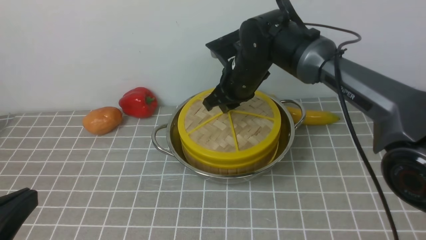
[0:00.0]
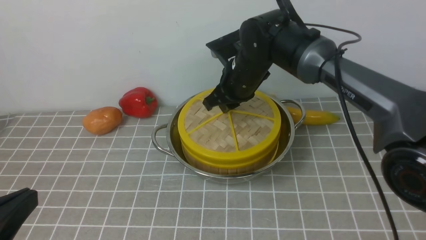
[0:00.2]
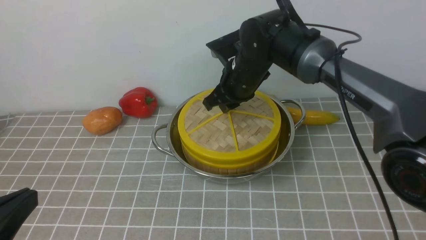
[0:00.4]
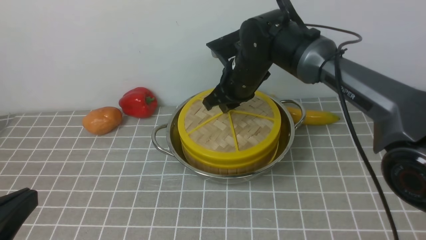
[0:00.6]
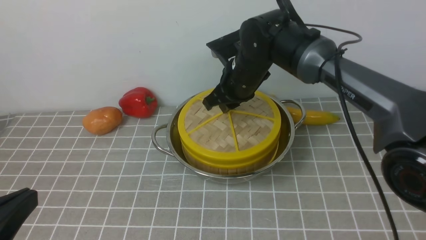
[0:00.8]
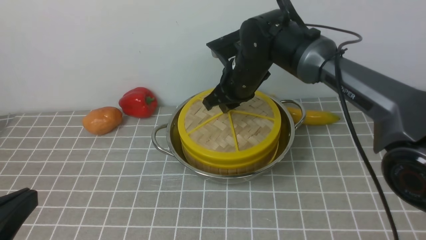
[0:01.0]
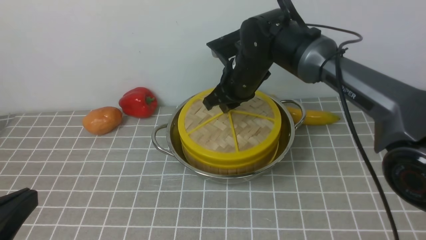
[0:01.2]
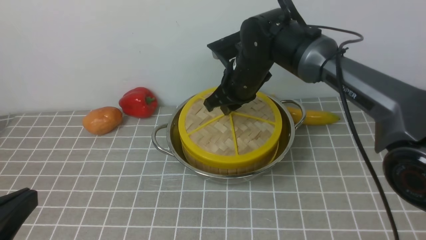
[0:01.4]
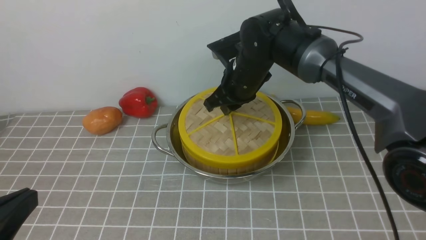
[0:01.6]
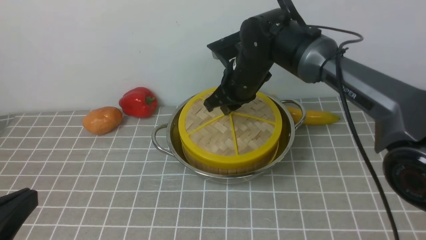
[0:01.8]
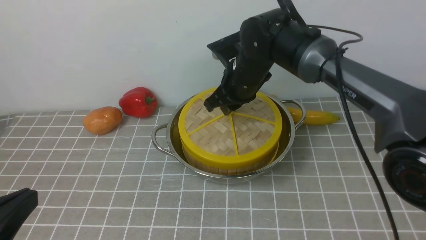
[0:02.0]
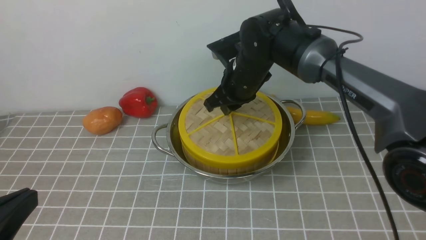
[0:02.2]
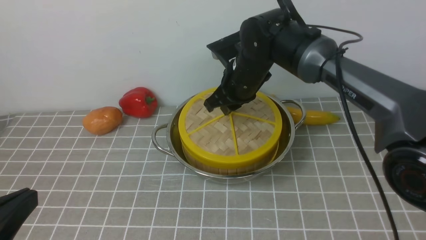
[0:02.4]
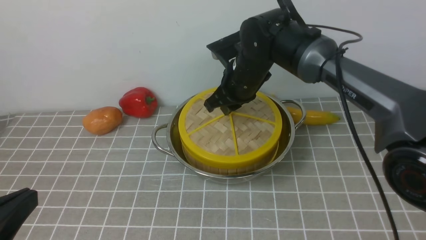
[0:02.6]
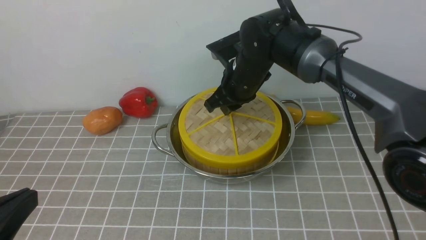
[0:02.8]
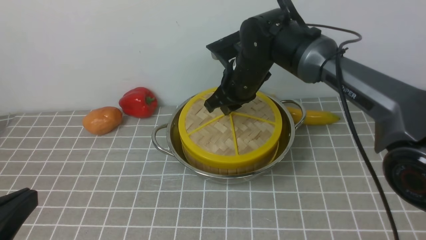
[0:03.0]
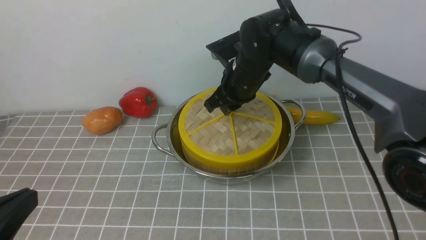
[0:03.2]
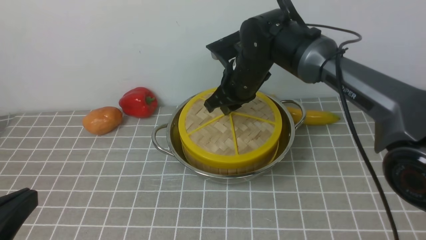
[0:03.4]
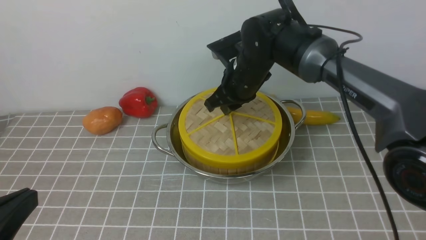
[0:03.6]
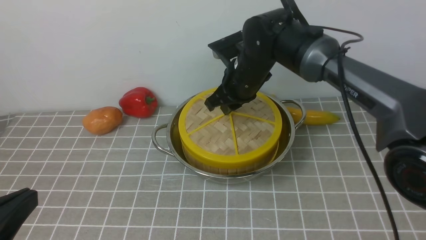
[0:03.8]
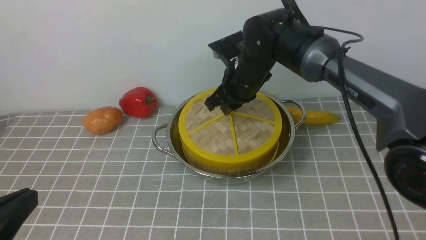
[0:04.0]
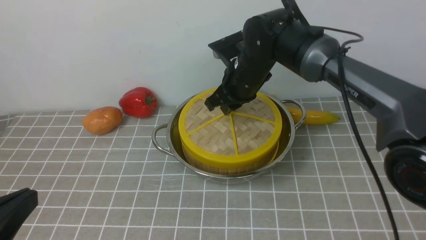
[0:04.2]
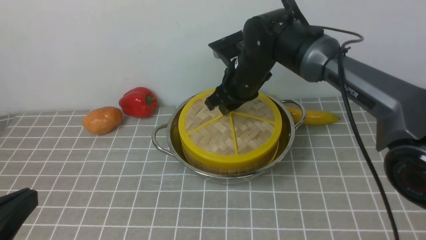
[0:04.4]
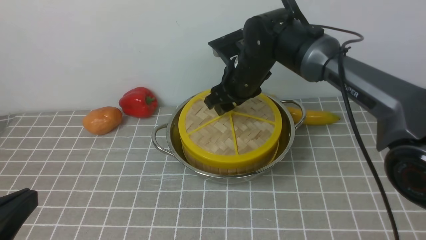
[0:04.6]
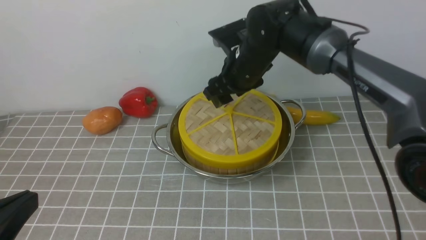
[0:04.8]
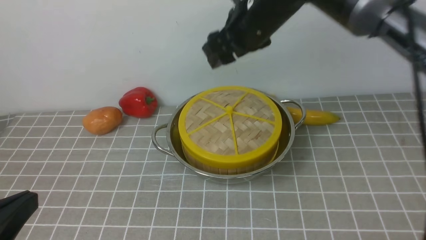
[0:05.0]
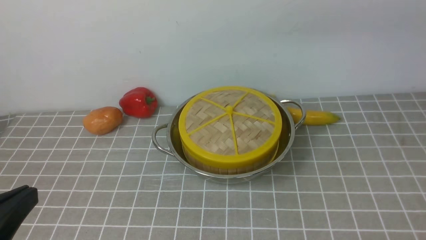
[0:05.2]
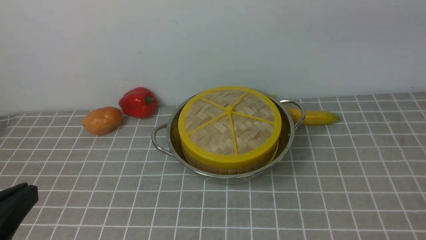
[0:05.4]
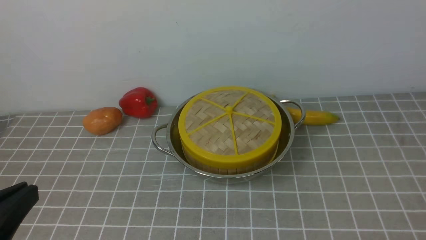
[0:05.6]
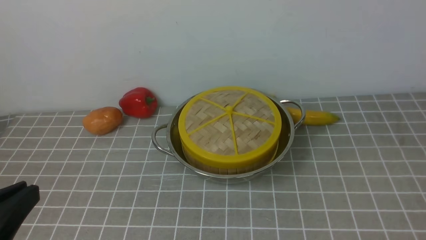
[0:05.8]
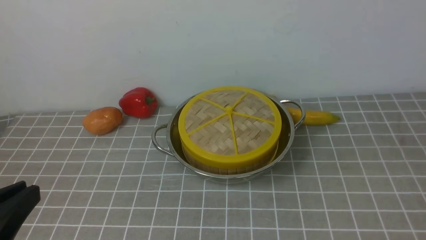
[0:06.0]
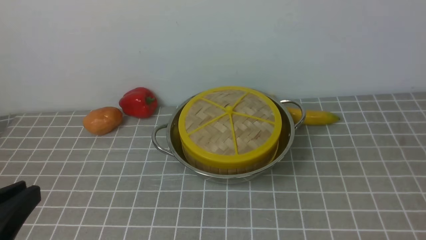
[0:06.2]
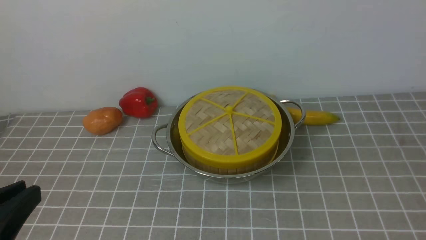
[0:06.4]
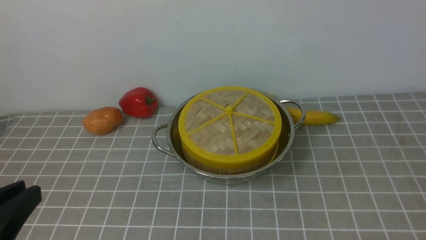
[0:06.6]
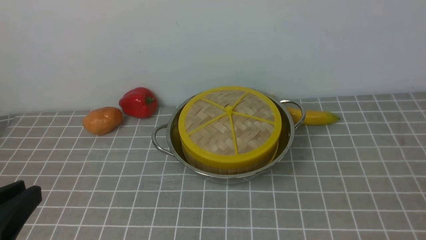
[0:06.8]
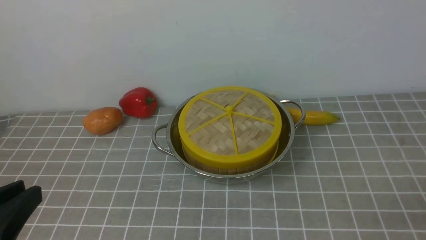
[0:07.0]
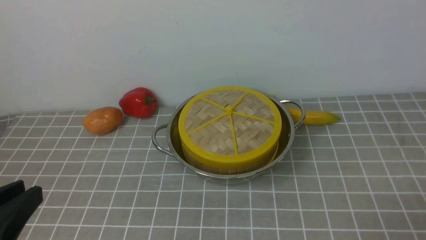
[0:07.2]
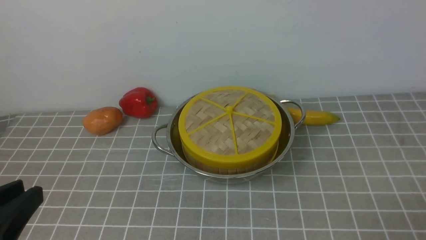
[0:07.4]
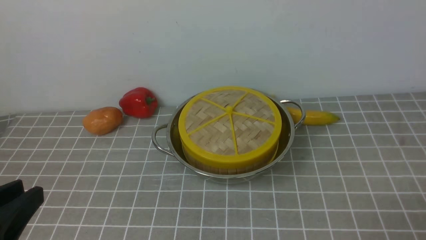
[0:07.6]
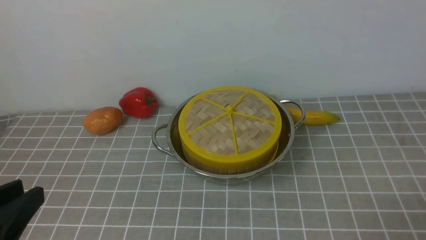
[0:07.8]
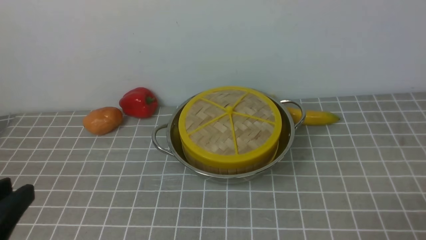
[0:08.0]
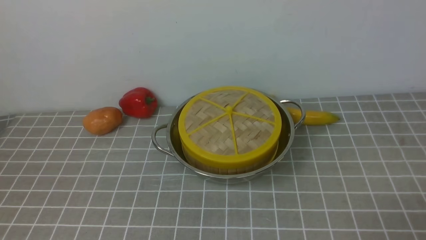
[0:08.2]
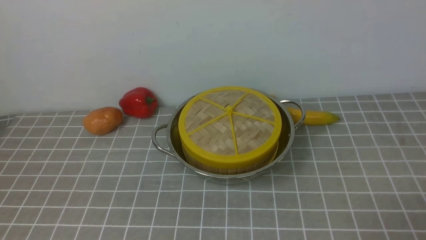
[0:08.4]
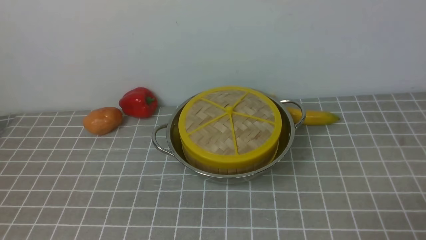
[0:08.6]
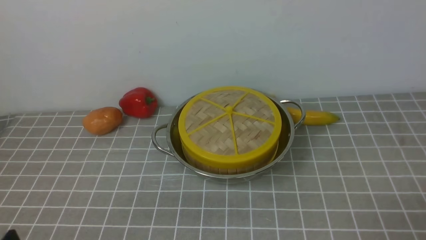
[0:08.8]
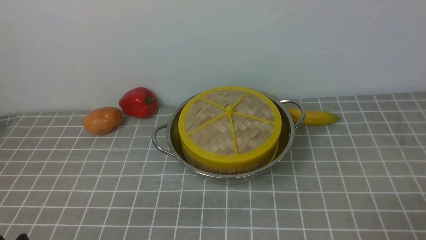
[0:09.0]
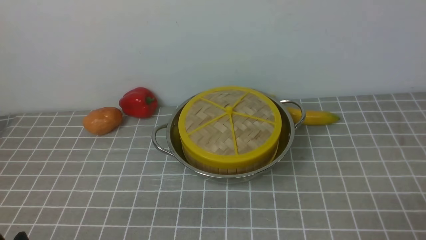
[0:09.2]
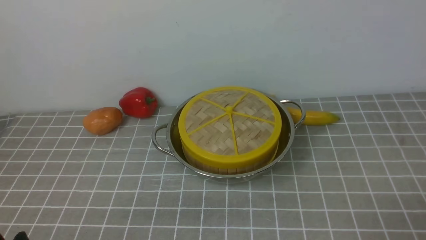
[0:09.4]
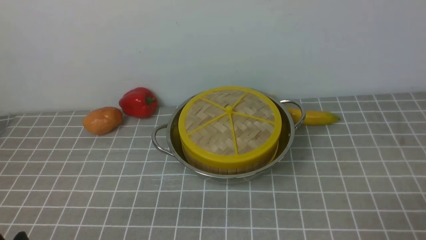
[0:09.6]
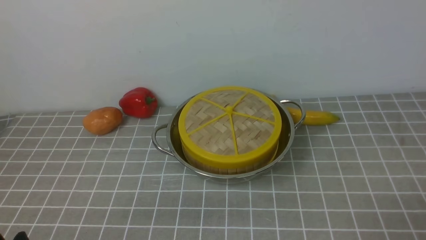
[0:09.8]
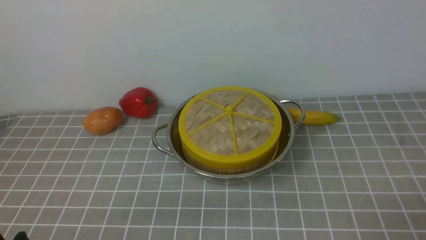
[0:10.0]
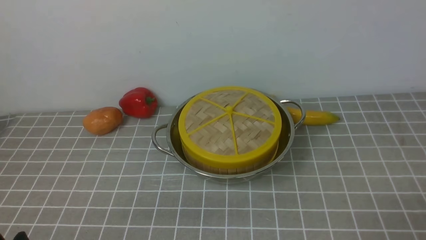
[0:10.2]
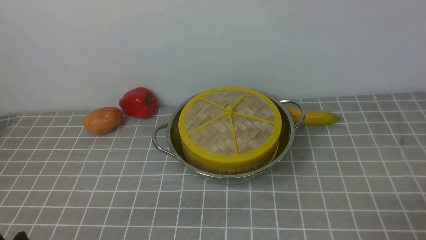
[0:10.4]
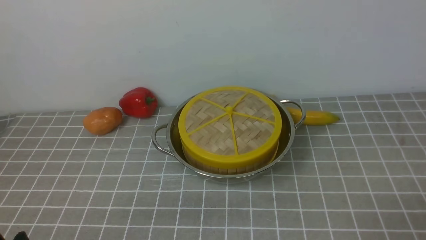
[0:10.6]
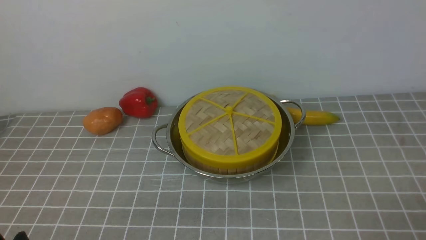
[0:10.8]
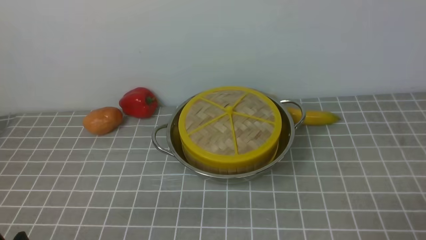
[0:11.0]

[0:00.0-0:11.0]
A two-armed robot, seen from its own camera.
Task of the whole recording: place the steamer in the pot on the grey tablecloth, and put the lid on the steamer.
Step, 0:00.0 to 0:04.8: use the right arm to place the steamer lid on the steamer.
0:00.0 to 0:03.2: Both grippers stay about where they are.
0:03.2 to 0:04.8: The right gripper travels upward by about 5 cm, and opens up.
0:04.8 to 0:06.2: The right gripper is displaced backward and to the right by roughly 40 cm, and closes up.
0:07.8 to 0:09.4: The left gripper heads downward, covering about 10 cm.
0:09.4 to 0:11.0: Both grippers stay put.
